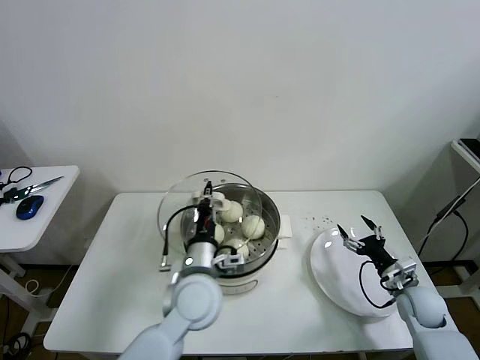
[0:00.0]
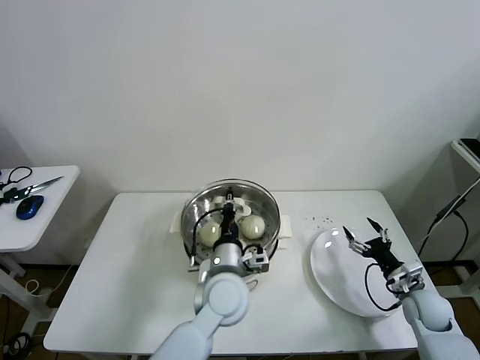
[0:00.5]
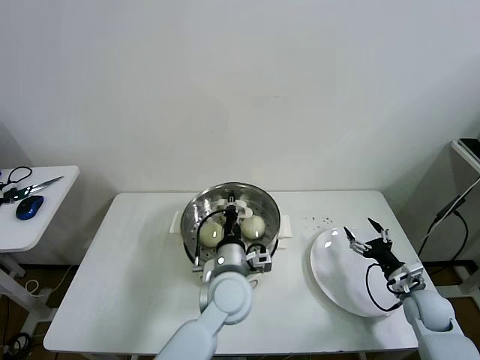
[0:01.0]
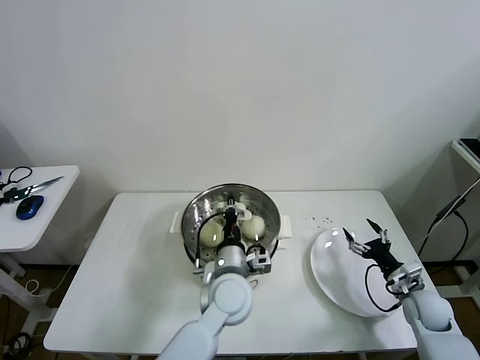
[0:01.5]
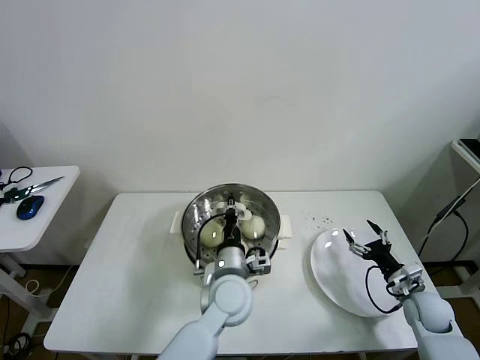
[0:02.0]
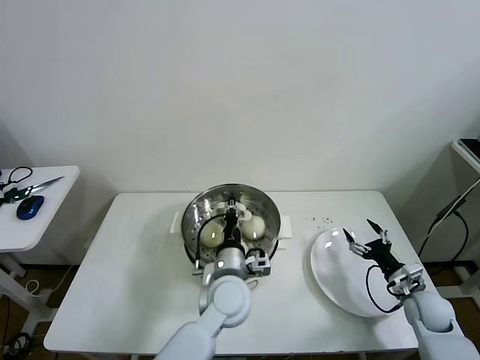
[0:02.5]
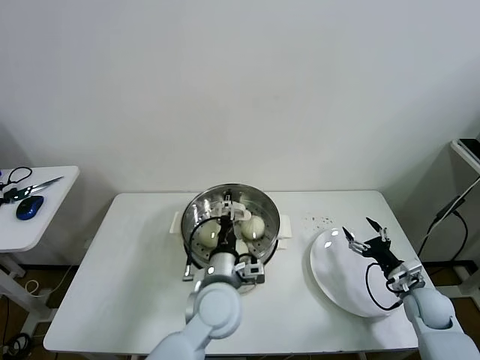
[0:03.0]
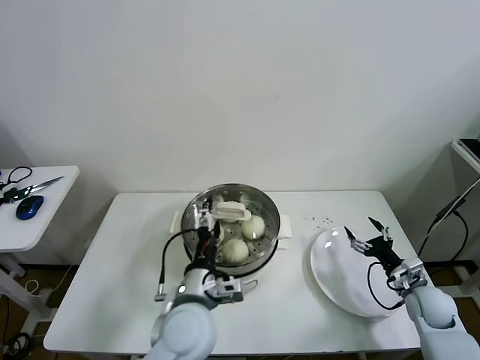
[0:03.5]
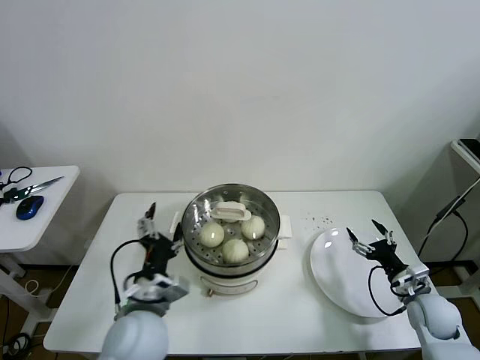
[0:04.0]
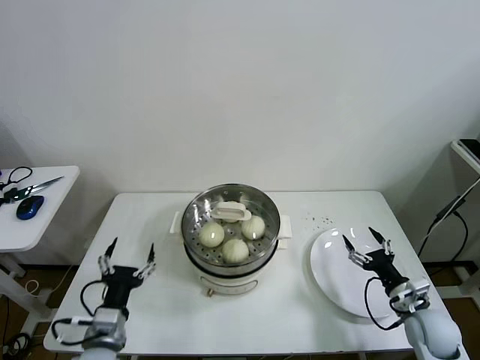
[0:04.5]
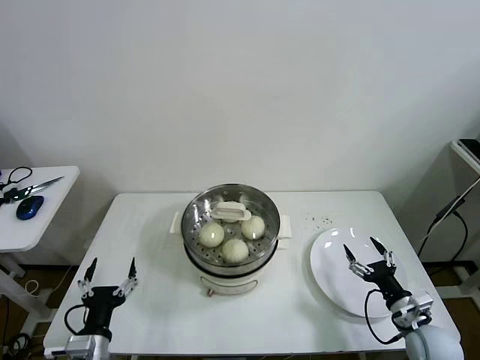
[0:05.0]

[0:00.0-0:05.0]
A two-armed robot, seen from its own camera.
Task of the whole recording: take steamed baozi put them in steamer then cover it.
Step, 0:00.0 to 0:03.0: Place the pot lid on the steamer with left gripper.
0:00.0 to 0:02.5: The left gripper heads to the right and downward, covering approximately 10 cm.
0:02.5 to 0:05.0: The right gripper travels backward by roughly 10 cm, while the left gripper heads to the left and backward, covering approximately 30 cm, and opens.

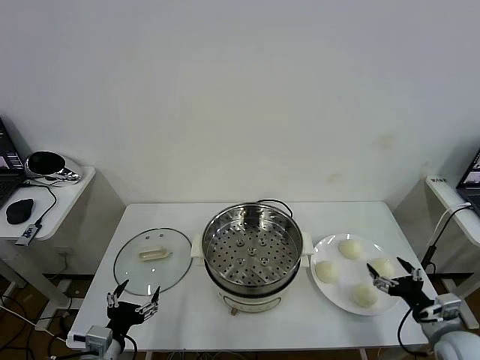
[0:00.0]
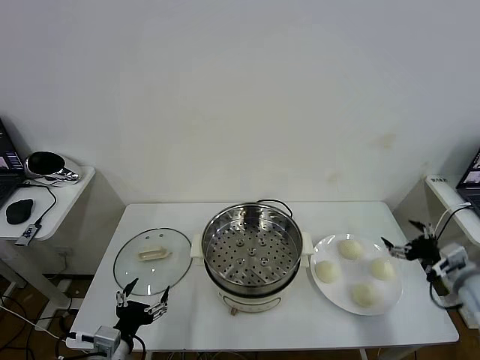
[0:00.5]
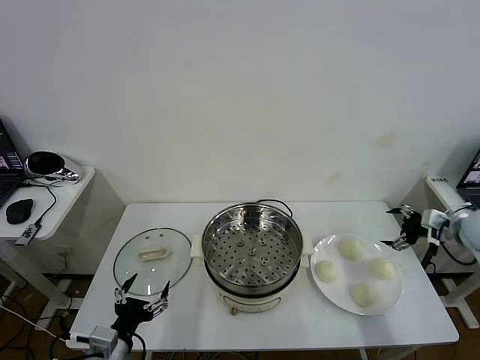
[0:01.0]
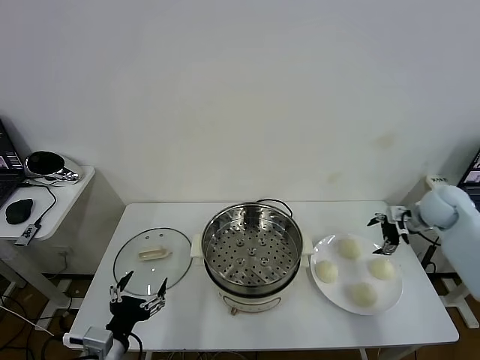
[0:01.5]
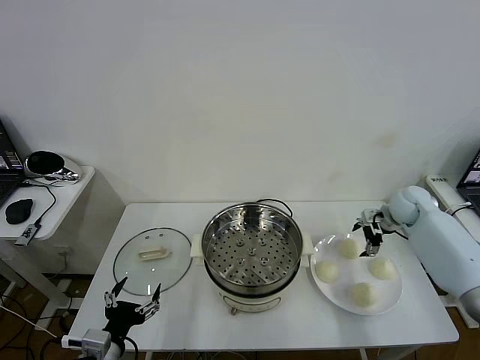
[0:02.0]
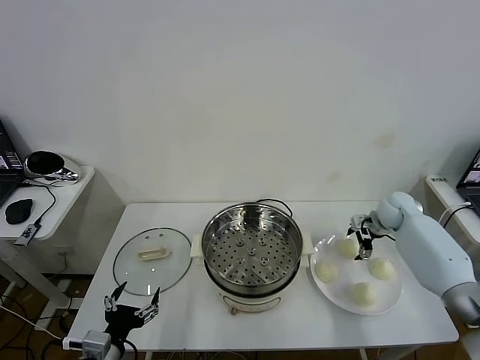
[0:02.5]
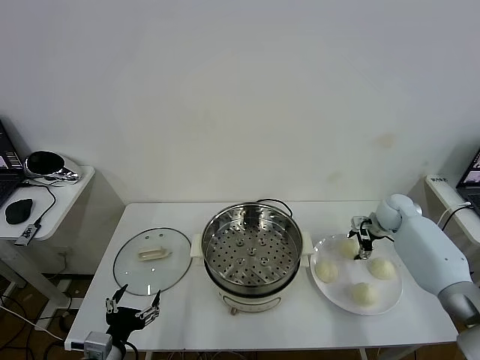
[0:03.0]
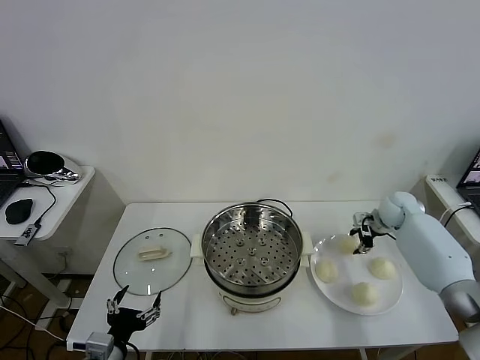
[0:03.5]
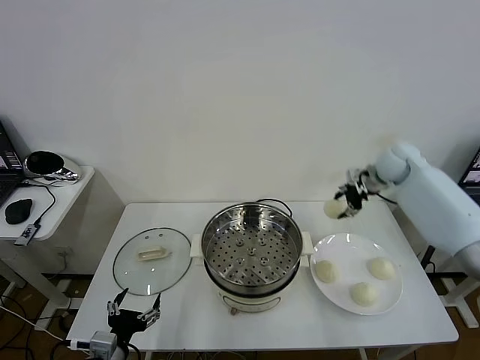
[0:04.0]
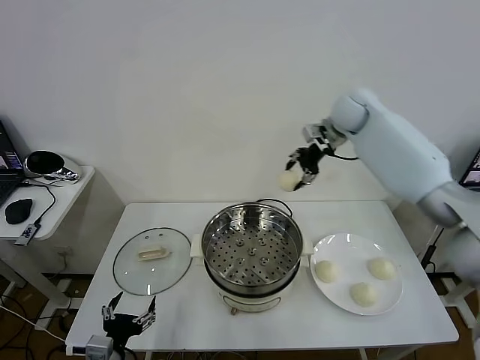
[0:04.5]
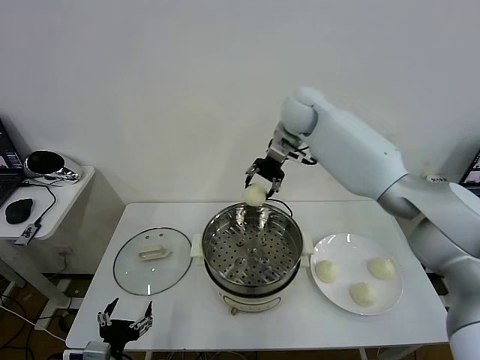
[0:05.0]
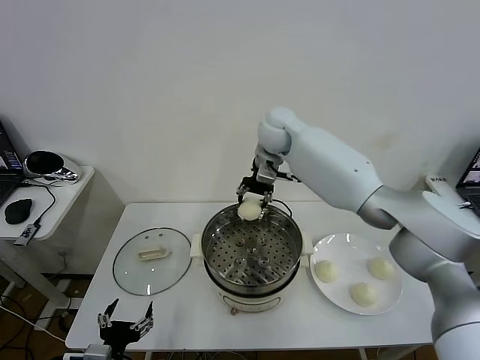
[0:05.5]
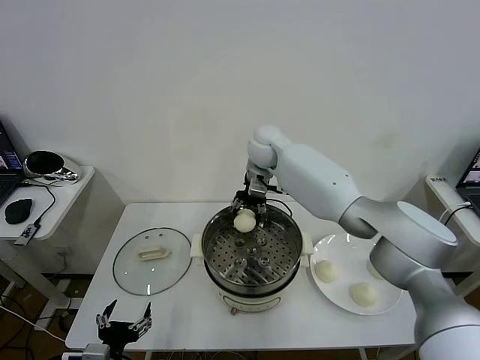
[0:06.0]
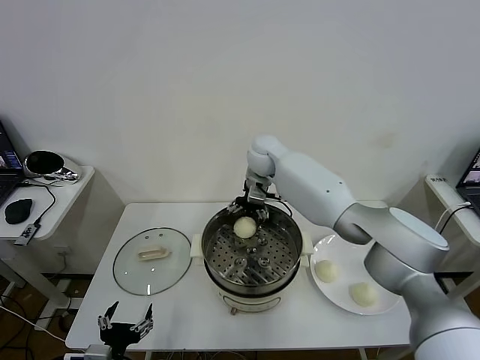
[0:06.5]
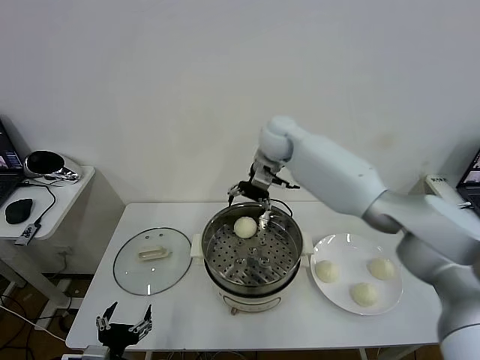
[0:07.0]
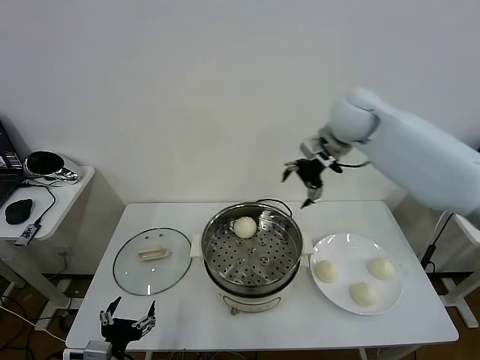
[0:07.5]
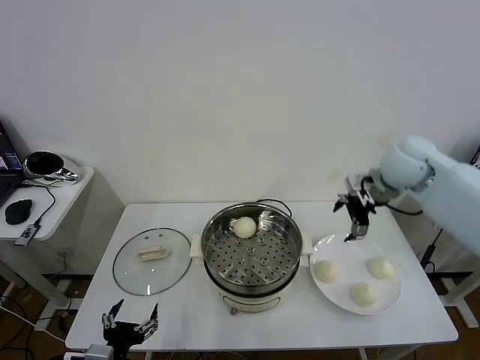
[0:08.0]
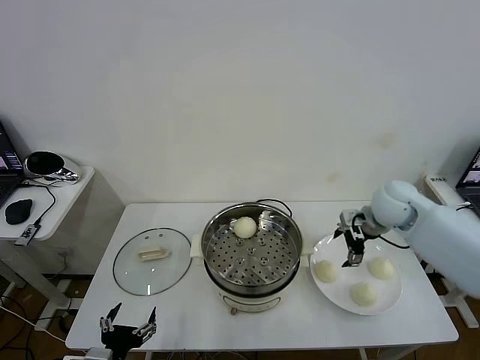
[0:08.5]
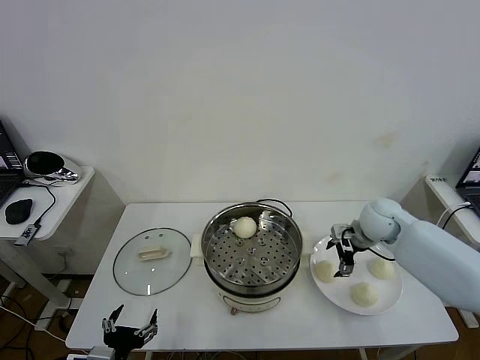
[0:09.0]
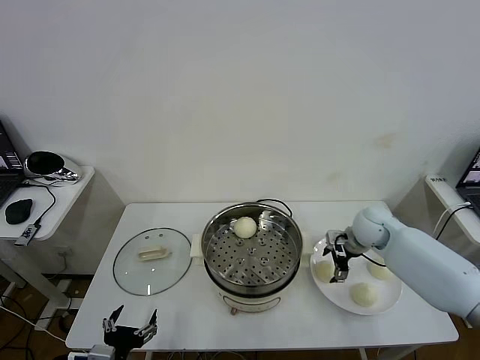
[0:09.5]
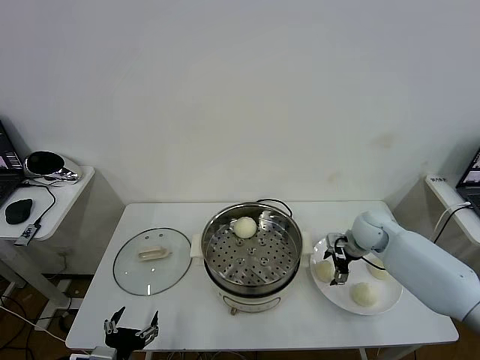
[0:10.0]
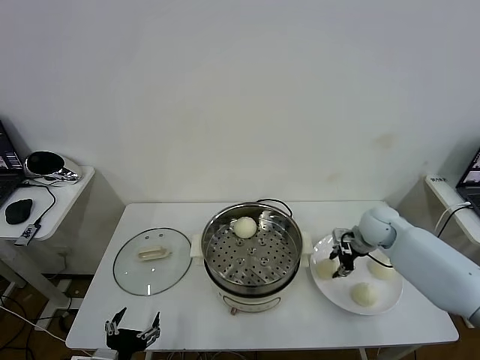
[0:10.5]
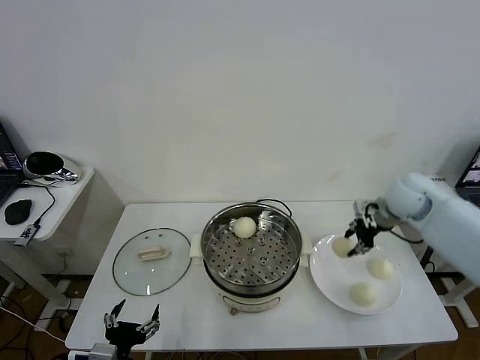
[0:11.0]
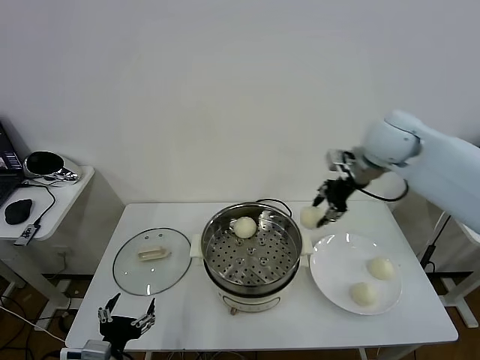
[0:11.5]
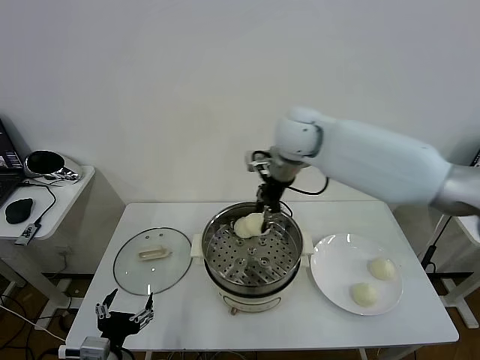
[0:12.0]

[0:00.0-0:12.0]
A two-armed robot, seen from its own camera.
Task of the whole recording: take steamed baozi put them in steamer then cover it.
Step, 0:00.0 to 0:03.0: Grasp the baozi in the plate with right gripper.
Step, 0:03.5 to 0:06.5: Place the baozi on the steamer with right gripper.
Step, 0:07.0 to 0:10.0: Grasp the baozi in the plate with right gripper.
0:02.0 to 0:04.0: The right gripper shifts some 20 cm upward and to the left, and closes.
0:04.0 to 0:06.0: The right gripper is displaced to the left by some 30 cm.
0:06.0 to 0:08.0: The right gripper goes roughly 30 cm to the right and backward, and opens.
0:08.0 to 0:10.0: The right gripper moves downward, some 20 cm.
0:10.0 to 0:12.0: The right gripper is displaced to the left and upward by about 35 cm, and closes its fingers.

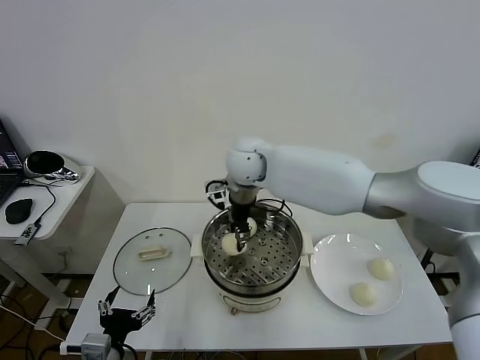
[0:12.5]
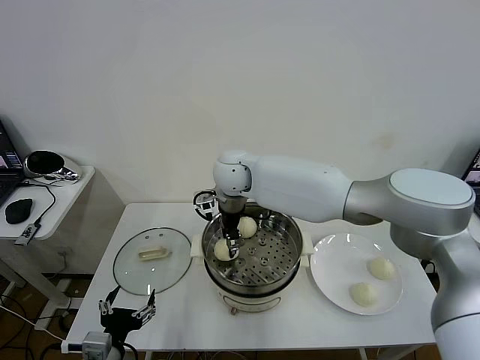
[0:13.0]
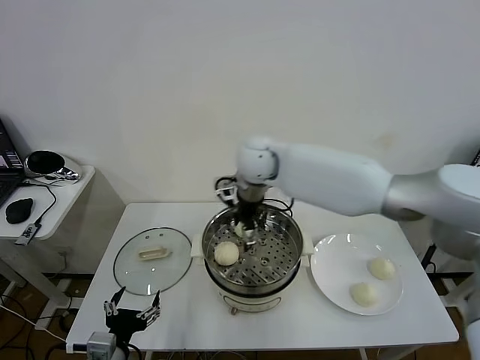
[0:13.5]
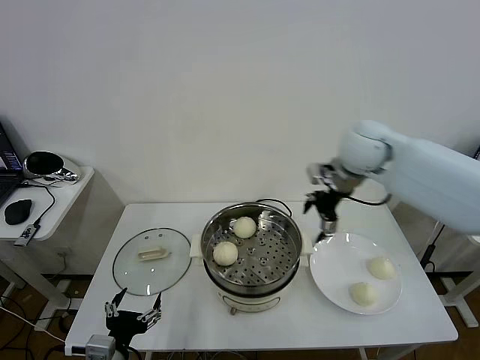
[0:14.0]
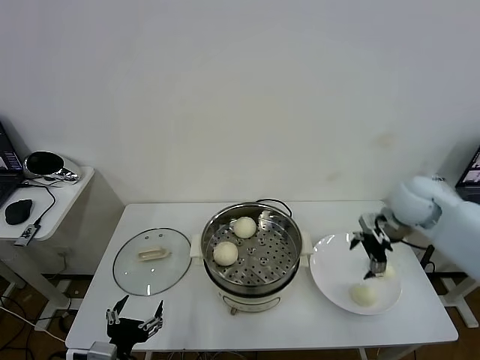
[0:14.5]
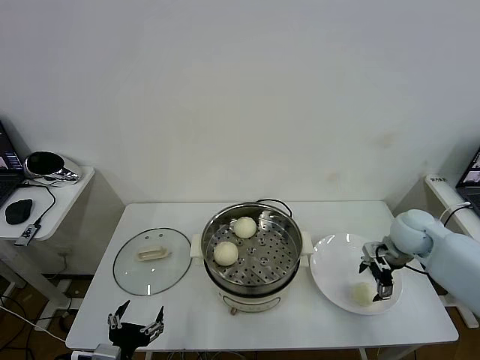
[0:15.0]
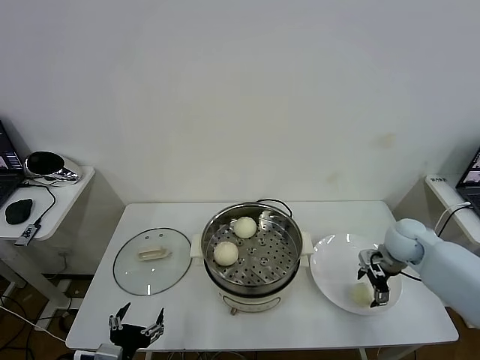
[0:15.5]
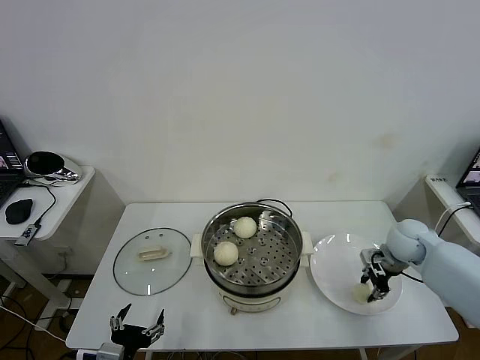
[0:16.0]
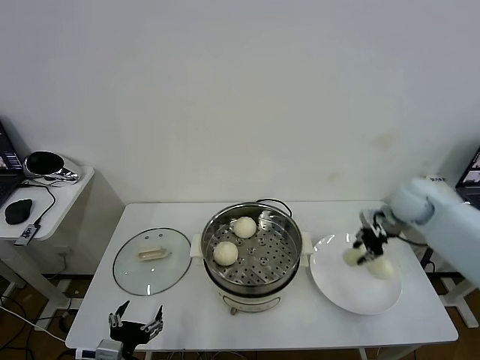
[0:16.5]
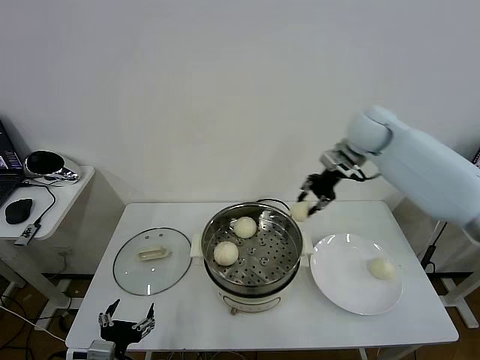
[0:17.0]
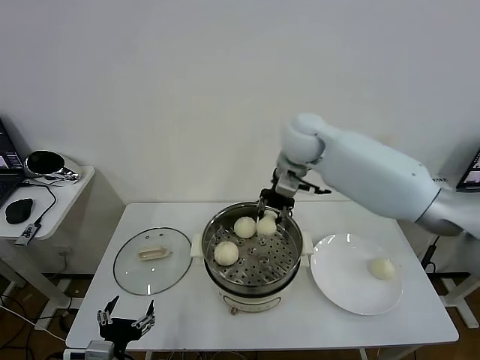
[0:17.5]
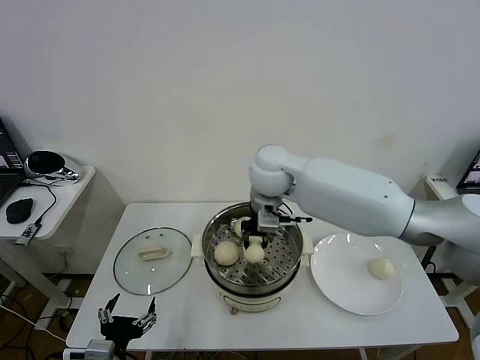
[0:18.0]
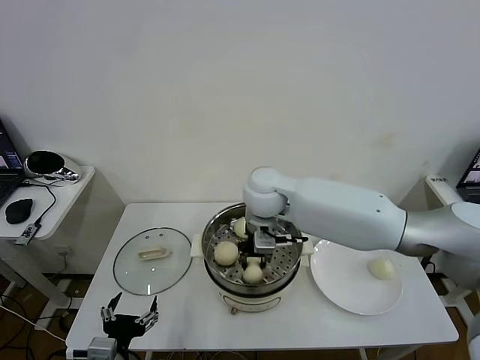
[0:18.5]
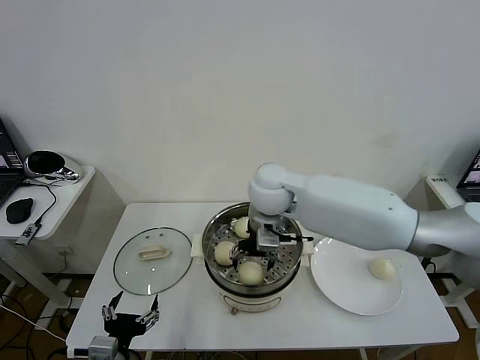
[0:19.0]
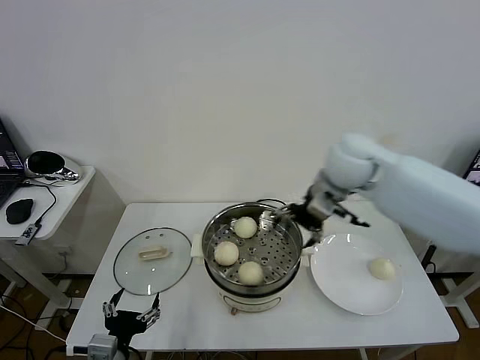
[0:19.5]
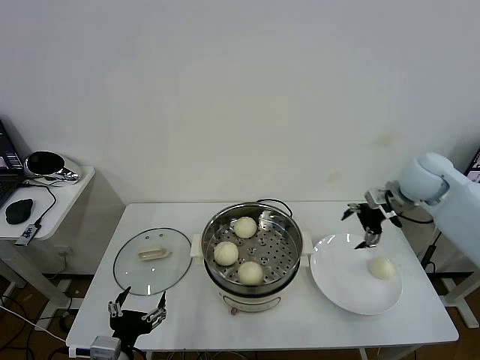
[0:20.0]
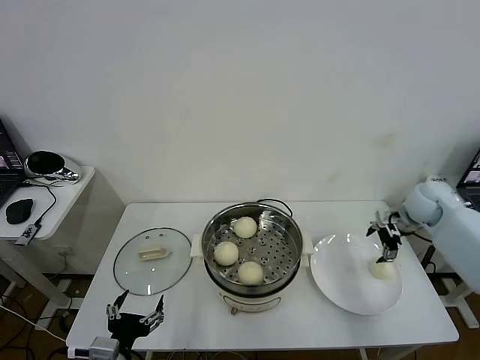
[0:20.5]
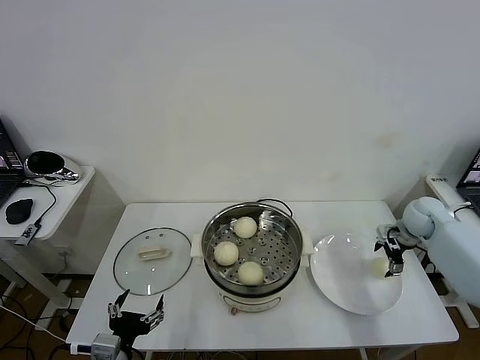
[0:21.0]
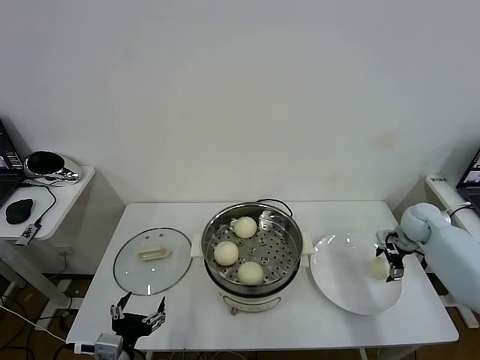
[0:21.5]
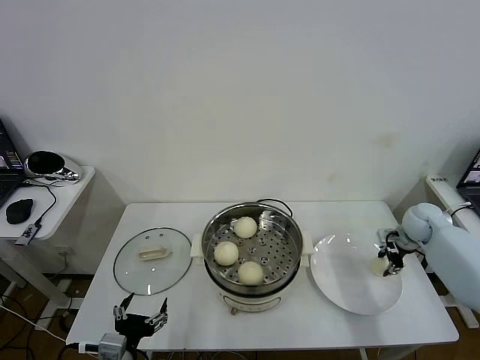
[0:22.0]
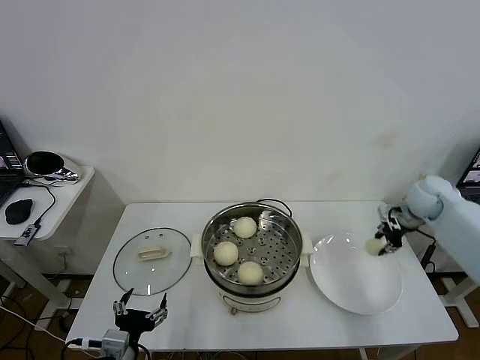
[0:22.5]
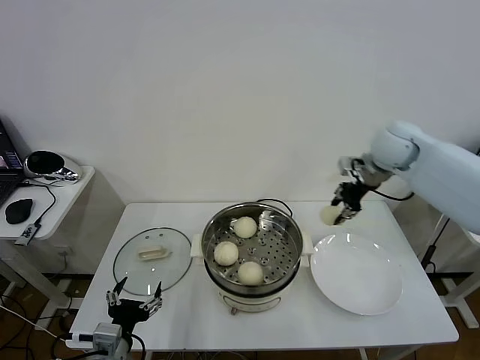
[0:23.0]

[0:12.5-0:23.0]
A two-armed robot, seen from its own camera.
Task of the whole recording: take steamed baozi put them in steamer then cover it.
Step, 0:13.5 to 0:15.5: Grasp the baozi in the plate with right gripper.
Step, 0:16.0 to 0:19.0: Place the baozi on the steamer with right gripper.
Step, 0:19.5 to 0:21.5: Grasp the baozi in the plate with right gripper.
0:12.5 to 0:14.5: The right gripper moves to the right, roughly 35 cm, and opens its fingers.
0:14.5 to 0:16.5: The right gripper travels forward by roughly 5 cm, reaches approximately 10 cm downward, then returns, and closes up.
0:16.5 to 0:19.0: The right gripper heads to the left, covering some 30 cm, and opens its fingers.
0:19.0 to 0:21.0: The right gripper moves to the right, roughly 40 cm.
0:21.0 to 0:23.0: The right gripper travels upward and to the left by some 25 cm, and closes its fingers.
